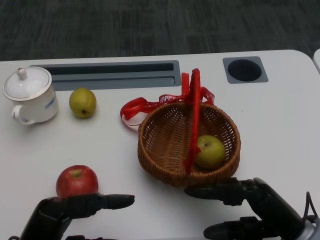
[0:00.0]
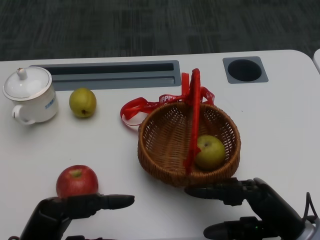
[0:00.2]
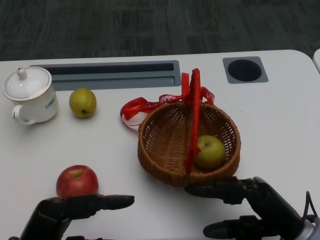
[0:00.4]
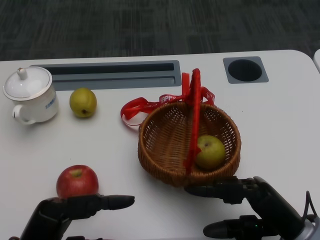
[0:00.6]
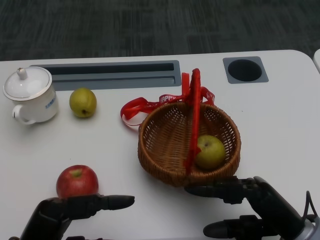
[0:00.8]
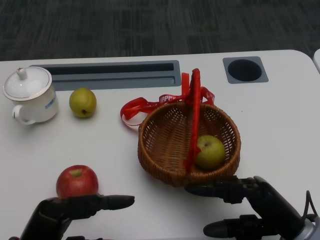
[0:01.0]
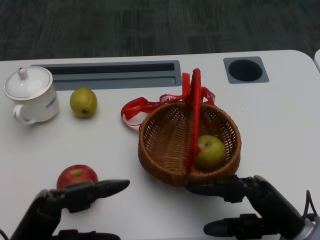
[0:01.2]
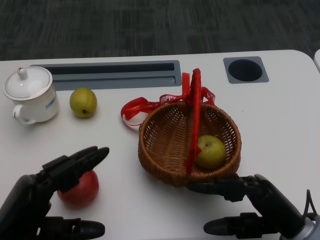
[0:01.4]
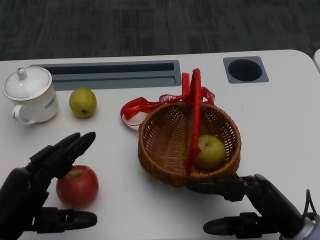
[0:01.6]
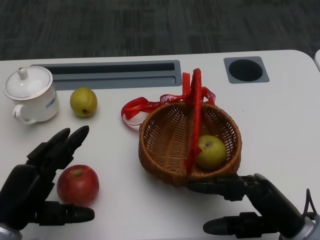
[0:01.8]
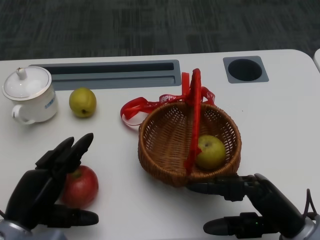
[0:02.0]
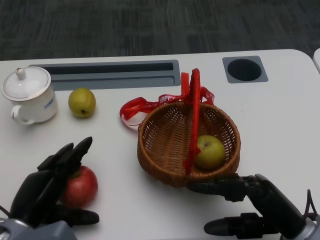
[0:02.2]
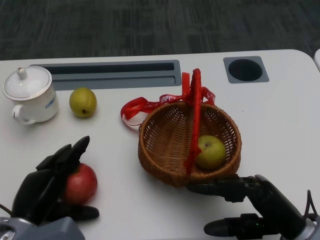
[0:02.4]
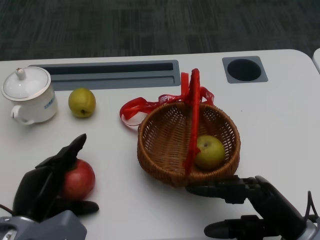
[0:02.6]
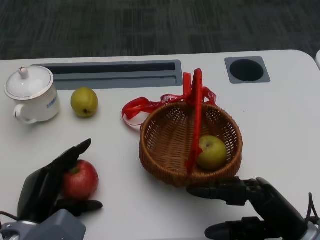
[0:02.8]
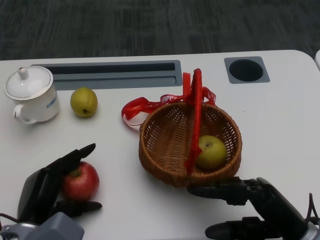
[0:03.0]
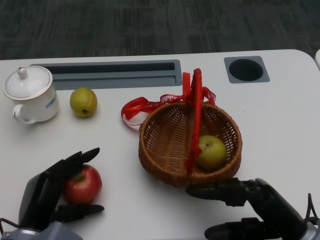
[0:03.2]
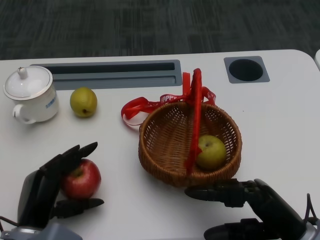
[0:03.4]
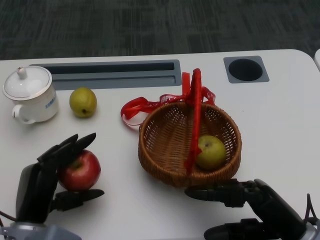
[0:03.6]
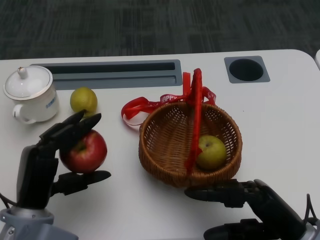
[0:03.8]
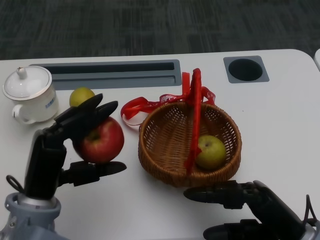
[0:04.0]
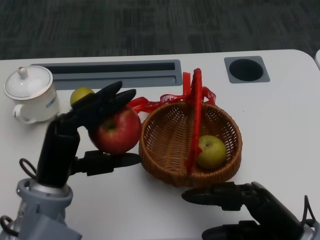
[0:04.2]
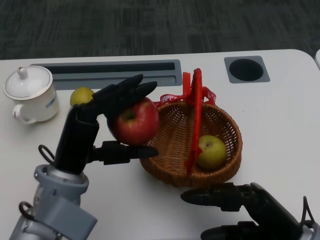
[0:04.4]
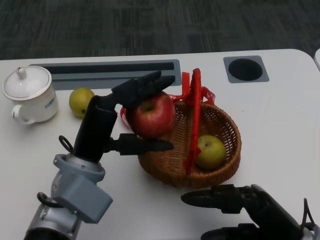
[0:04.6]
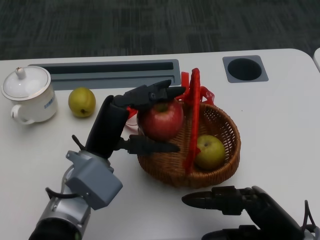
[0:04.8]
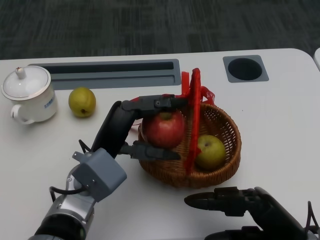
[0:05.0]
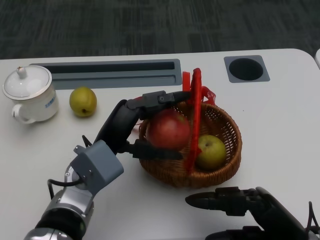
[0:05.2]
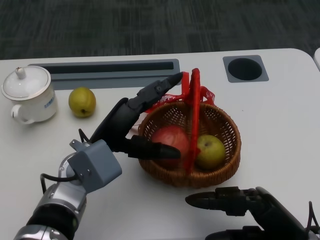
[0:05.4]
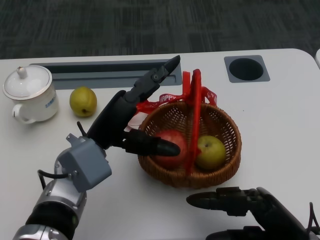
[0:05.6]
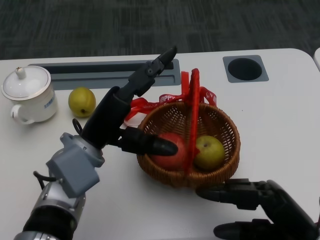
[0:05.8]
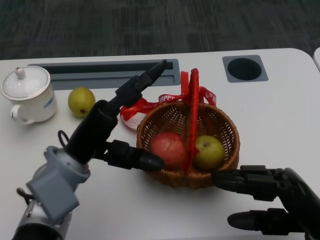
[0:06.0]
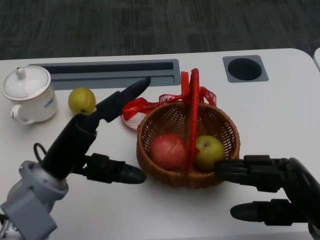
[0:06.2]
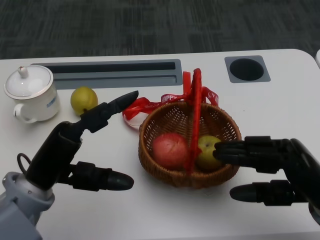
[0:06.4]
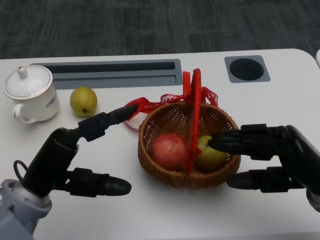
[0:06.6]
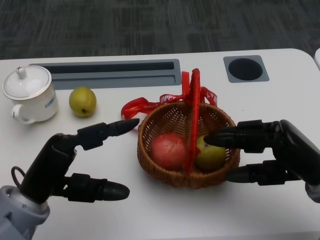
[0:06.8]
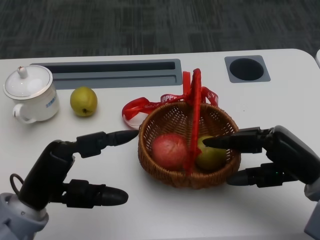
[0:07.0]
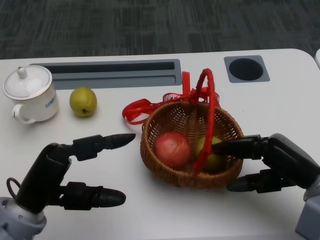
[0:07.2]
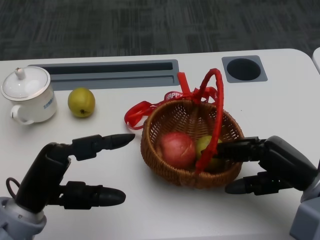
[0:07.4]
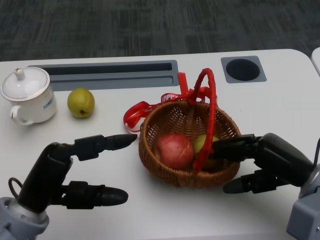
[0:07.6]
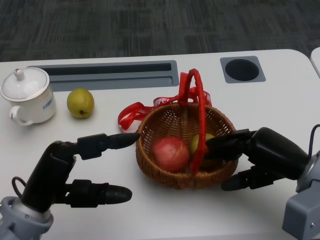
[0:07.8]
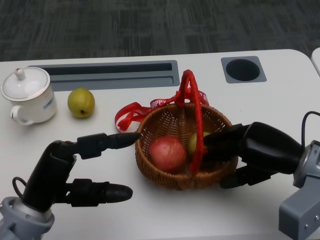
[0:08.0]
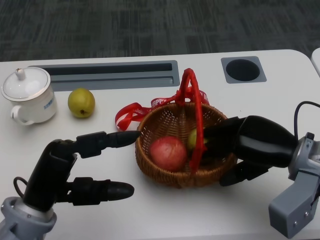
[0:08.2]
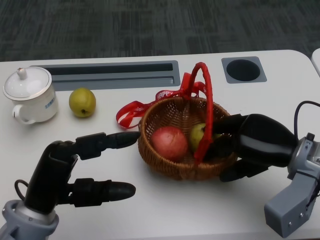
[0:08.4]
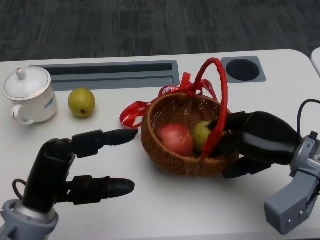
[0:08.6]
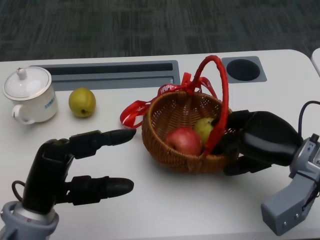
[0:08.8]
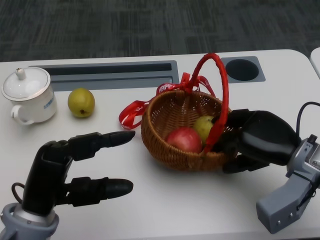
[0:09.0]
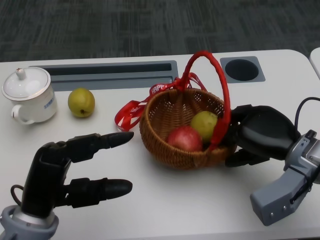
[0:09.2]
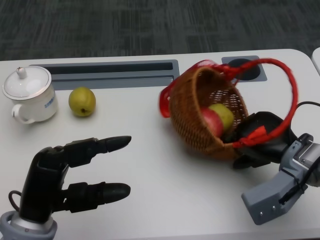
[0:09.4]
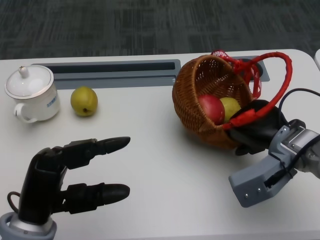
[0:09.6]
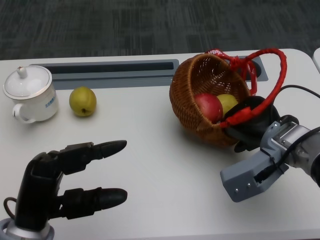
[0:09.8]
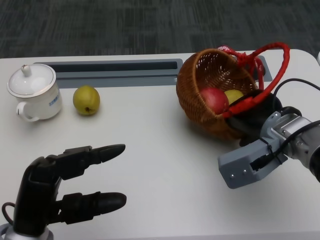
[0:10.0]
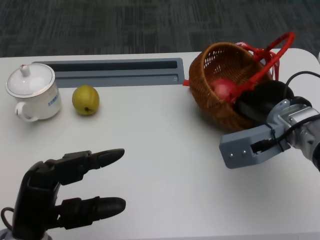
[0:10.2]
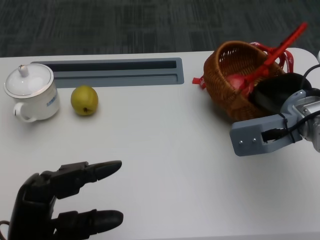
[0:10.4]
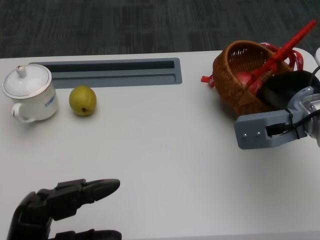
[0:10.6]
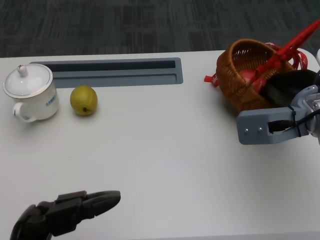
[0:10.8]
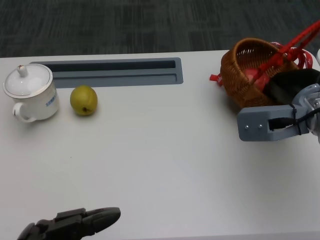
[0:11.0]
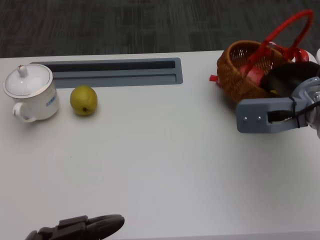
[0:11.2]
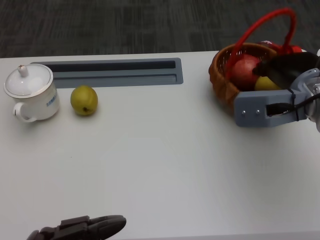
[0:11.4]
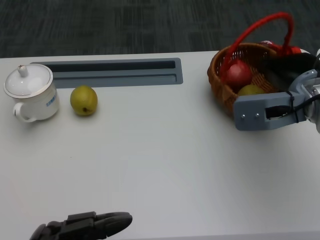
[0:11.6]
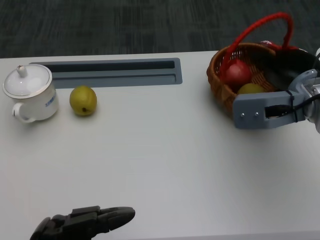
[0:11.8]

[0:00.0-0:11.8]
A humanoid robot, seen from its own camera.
Step, 0:01.0 to 0:02.0: Grasp the apple with the left gripper.
Step, 0:02.2 to 0:04.2: Place the apple into the basket with the left gripper.
Step, 0:04.6 to 0:07.4: Grasp the basket with the right gripper.
Step, 0:07.6 to 0:09.4: Move the basket to the front of the table with the right gripper.
0:01.4 to 0:03.0: The left hand travels downward and forward by approximately 10 cm.
0:03.0 to 0:04.4: The left hand heads upward and to the right, covering about 10 cm.
0:06.0 to 0:07.4: The left hand travels backward and to the left by some 10 cm. The right hand shifts about 5 cm forward.
0:08.8 to 0:10.4: The right hand shifts about 5 cm forward.
0:10.4 to 0:11.8: The left hand travels backward by about 5 cm.

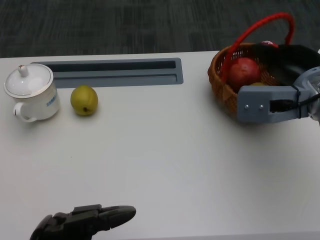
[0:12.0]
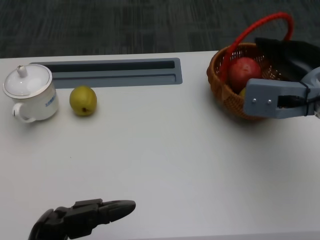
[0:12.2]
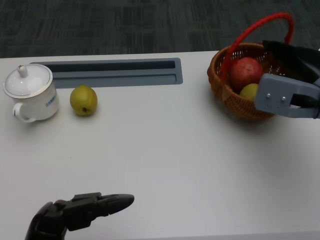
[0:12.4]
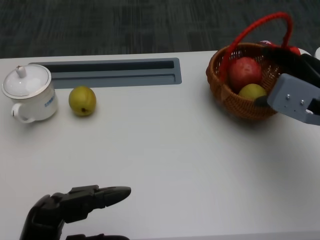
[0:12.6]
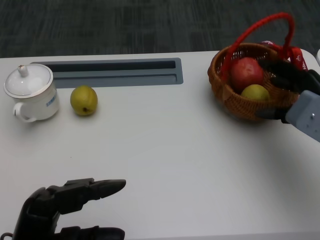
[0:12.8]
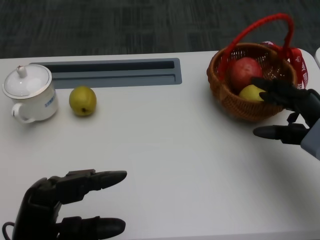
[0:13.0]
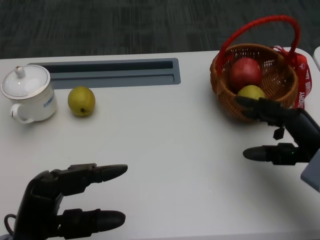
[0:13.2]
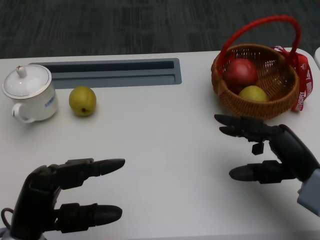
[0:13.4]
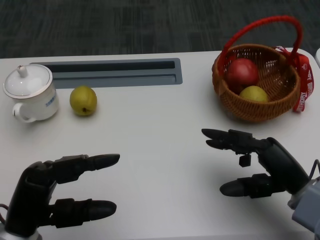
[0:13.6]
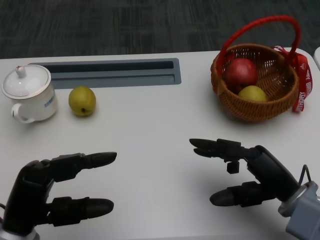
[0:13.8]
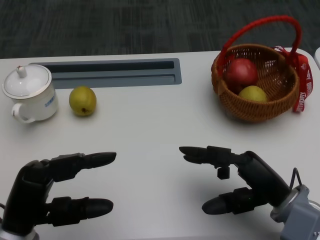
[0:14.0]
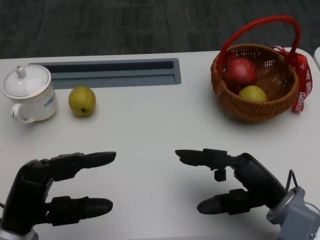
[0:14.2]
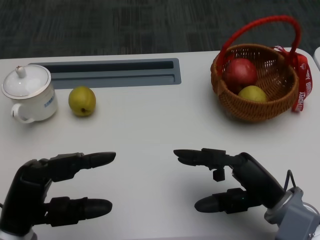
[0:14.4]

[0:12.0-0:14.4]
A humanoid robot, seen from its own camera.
0:12.0 to 0:13.2: The left hand goes about 5 cm forward. Meanwhile the right hand moves downward and backward, about 10 cm.
0:13.2 to 0:14.4: The right hand is displaced to the left by approximately 5 cm.
